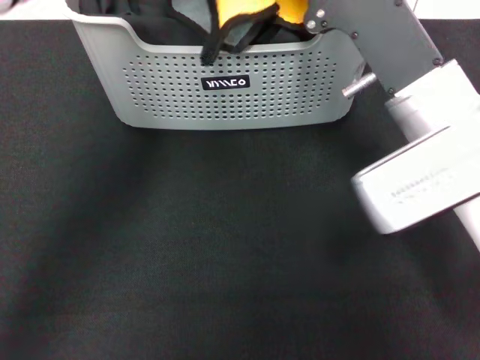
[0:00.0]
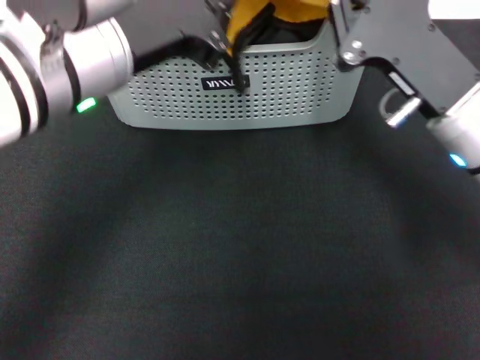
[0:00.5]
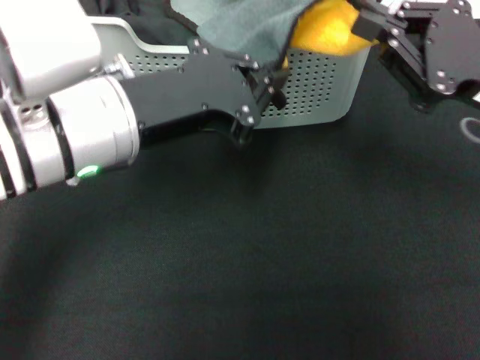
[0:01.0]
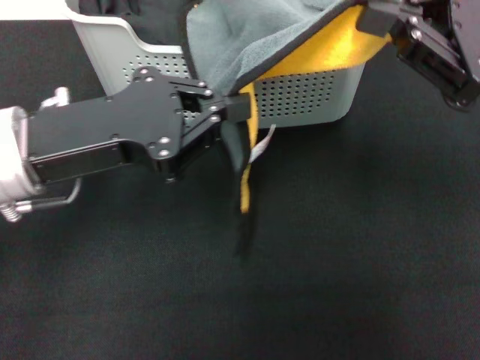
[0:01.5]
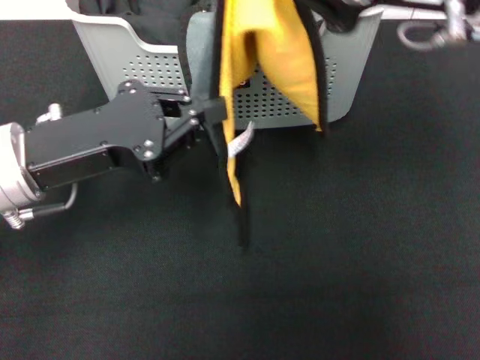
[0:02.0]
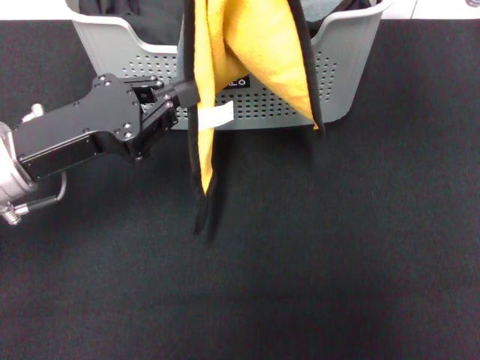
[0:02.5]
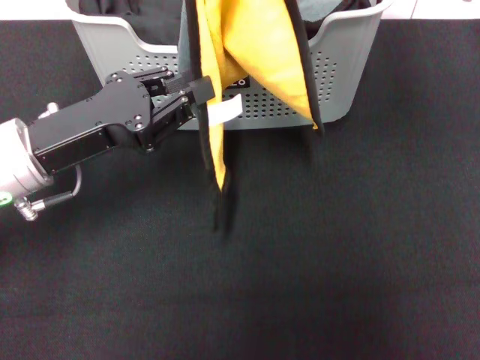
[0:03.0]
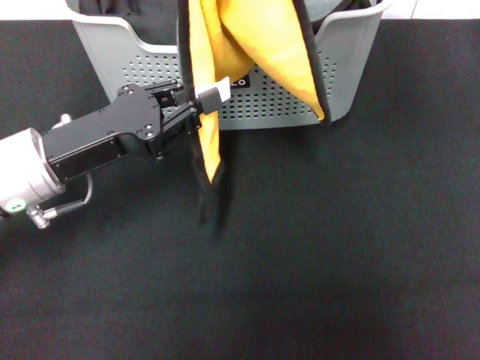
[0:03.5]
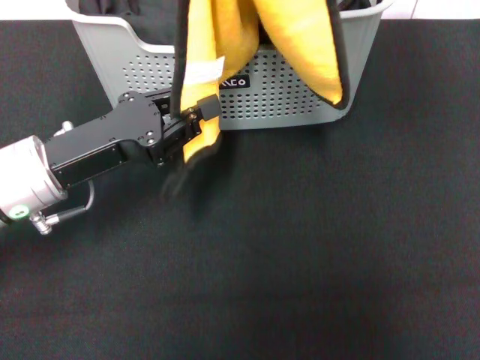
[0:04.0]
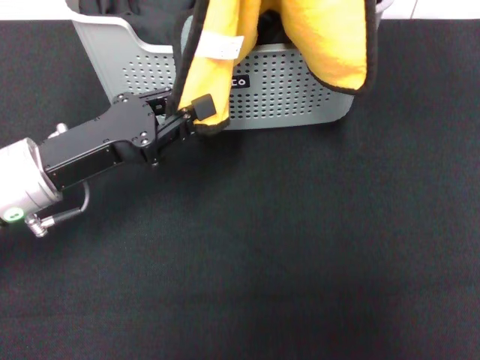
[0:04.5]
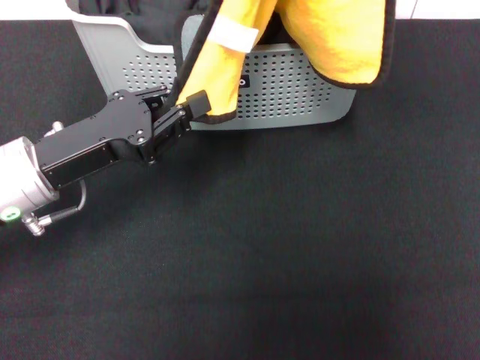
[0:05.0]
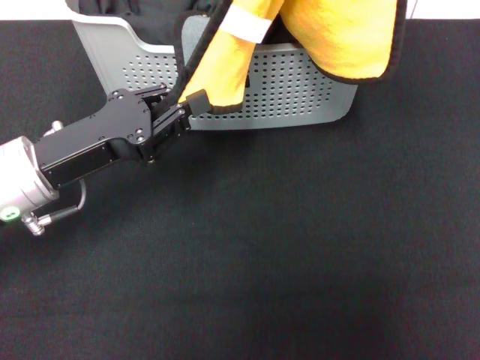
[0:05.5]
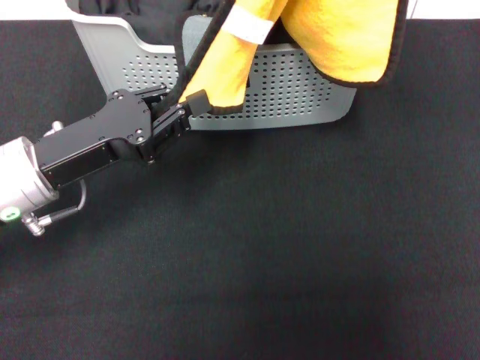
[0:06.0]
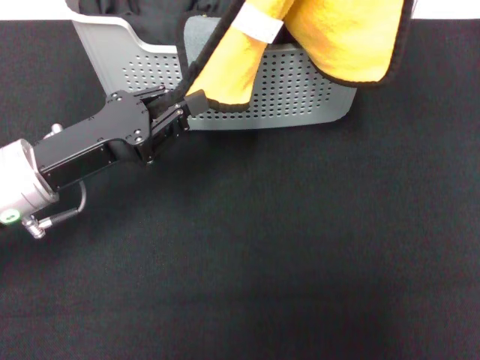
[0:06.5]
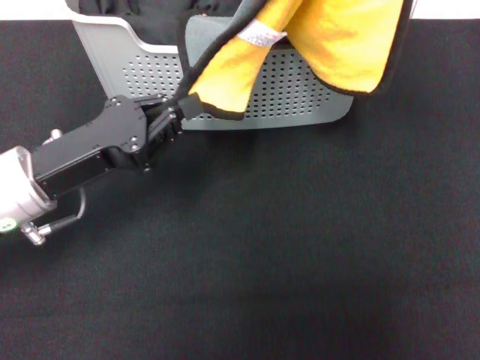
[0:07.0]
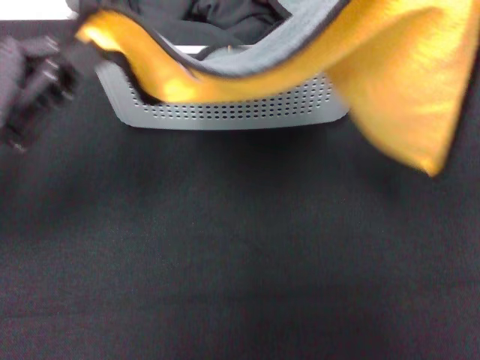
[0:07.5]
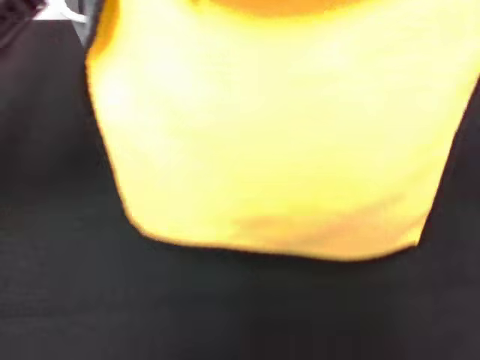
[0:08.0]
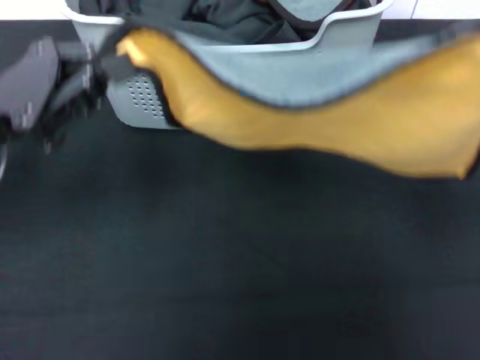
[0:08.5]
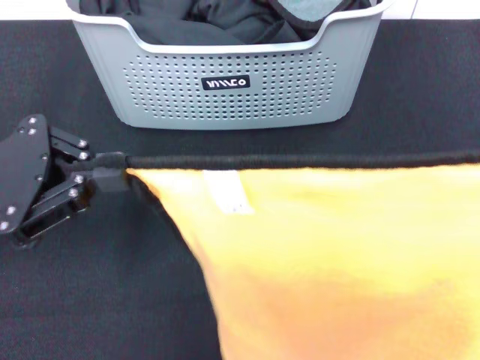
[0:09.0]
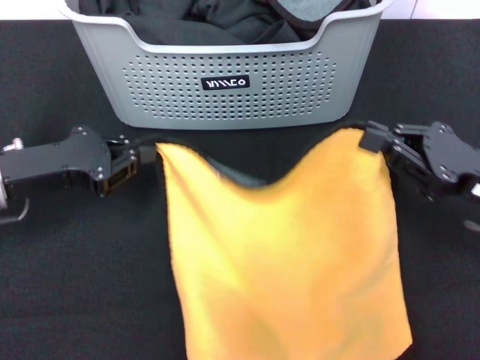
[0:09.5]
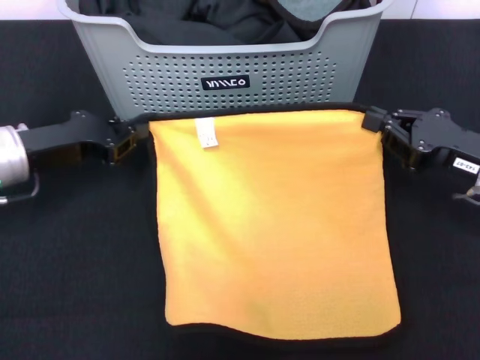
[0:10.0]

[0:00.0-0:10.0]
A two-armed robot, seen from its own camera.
Task of the whole recording: pick up the towel from the storage box and lay it flat on the black tablecloth.
0:00.0 to 0:02.0: The right gripper travels upward by roughly 10 cm. Meanwhile the left gripper shifts roughly 20 cm downward, to the left and backward.
0:02.0 to 0:04.0: The left gripper moves some 5 cm, while the right gripper shifts by roughly 5 cm.
0:04.0 to 0:06.0: The right gripper is displaced to the right by some 5 cm.
0:06.0 to 0:08.0: The left gripper heads upward and to the left, covering roughly 10 cm; the right gripper moves backward, downward and to the right, roughly 10 cm.
0:08.0 to 0:10.0: Both grippers travel together downward, some 15 cm.

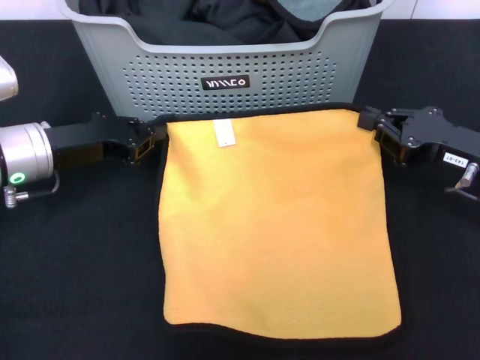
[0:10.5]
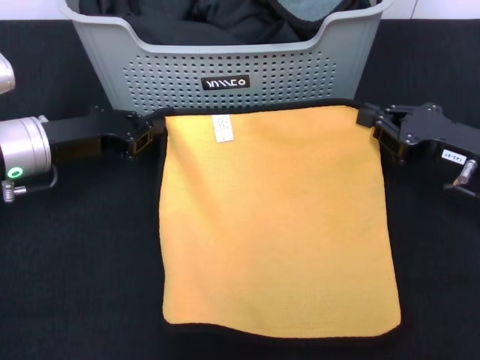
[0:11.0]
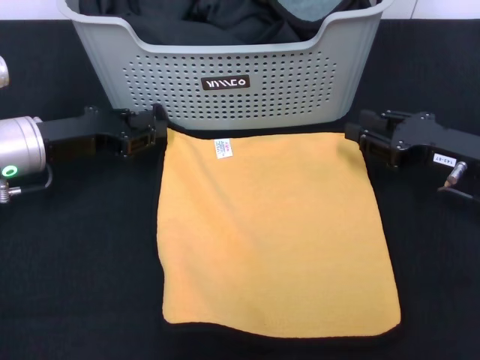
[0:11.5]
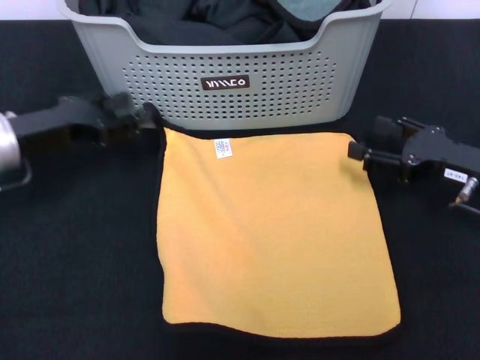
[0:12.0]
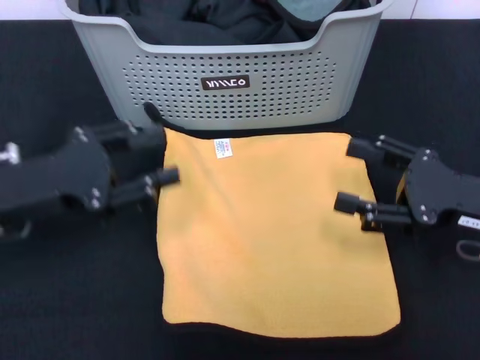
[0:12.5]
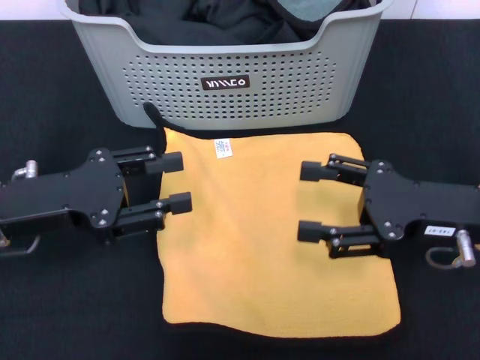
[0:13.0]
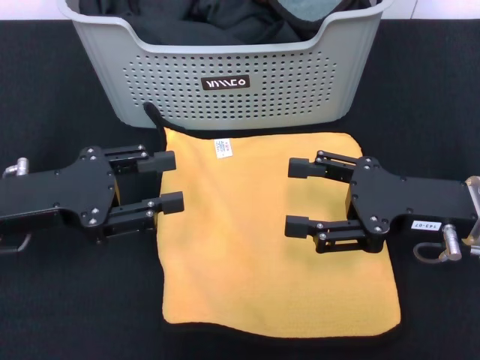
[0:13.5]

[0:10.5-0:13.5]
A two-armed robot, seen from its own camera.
Task of the whole recording: pick up the towel from the storage box and lay it flat on the black tablecloth.
0:10.5 to 0:12.0: The left gripper opens. Meanwhile the right gripper opens its fingers.
0:12.0 to 0:13.5: The left gripper travels backward by about 5 cm; the right gripper moves to the left, about 5 cm.

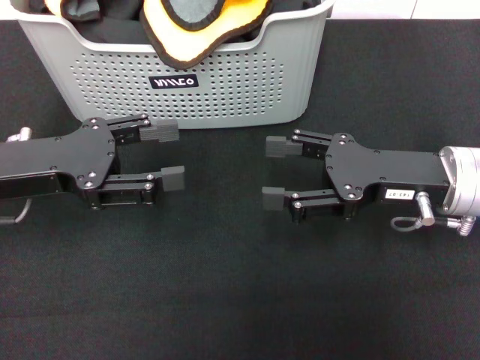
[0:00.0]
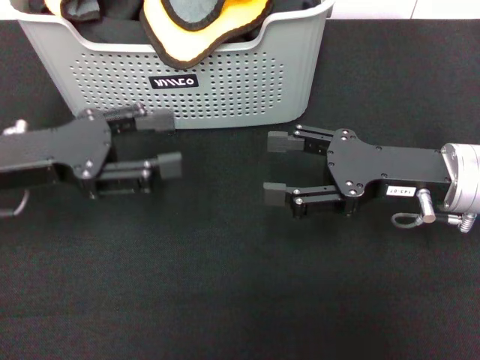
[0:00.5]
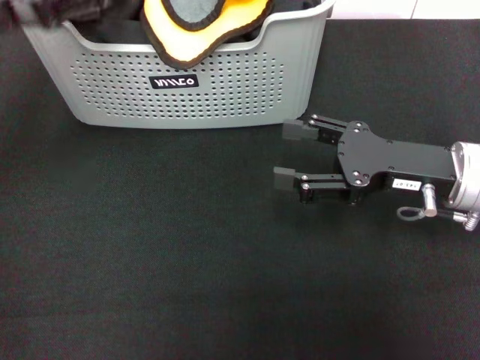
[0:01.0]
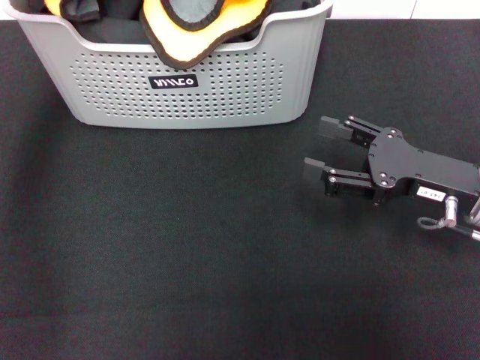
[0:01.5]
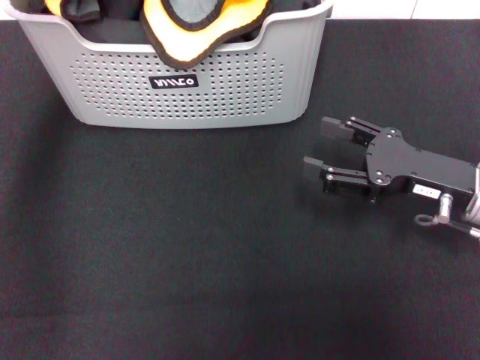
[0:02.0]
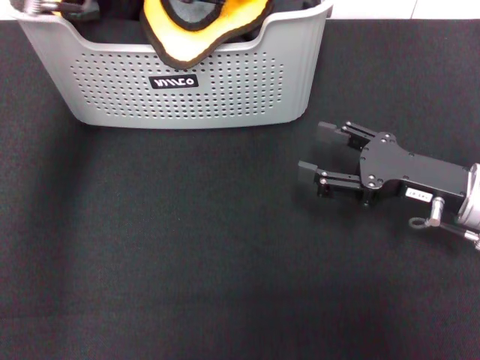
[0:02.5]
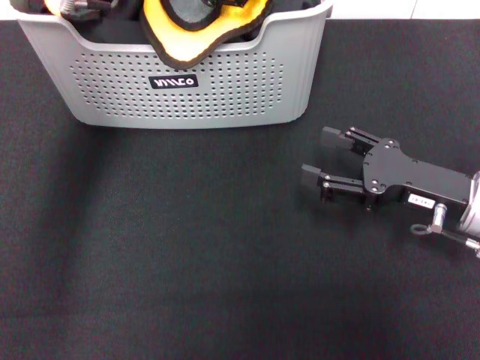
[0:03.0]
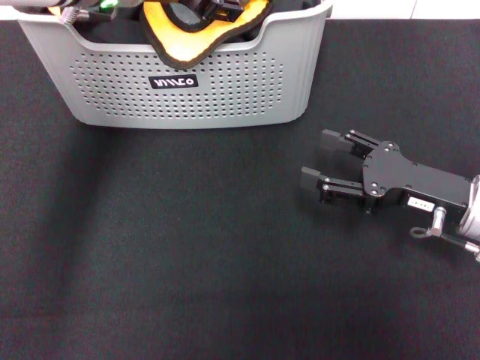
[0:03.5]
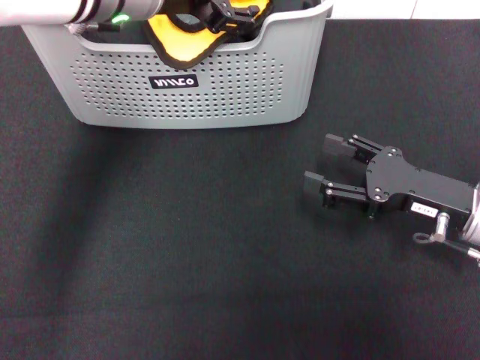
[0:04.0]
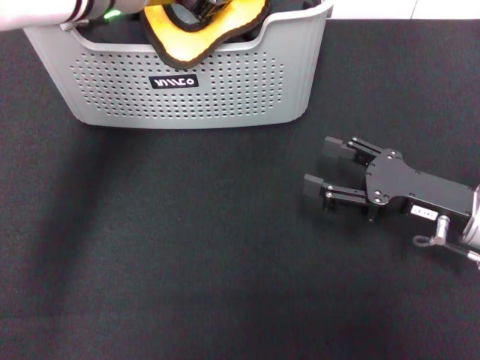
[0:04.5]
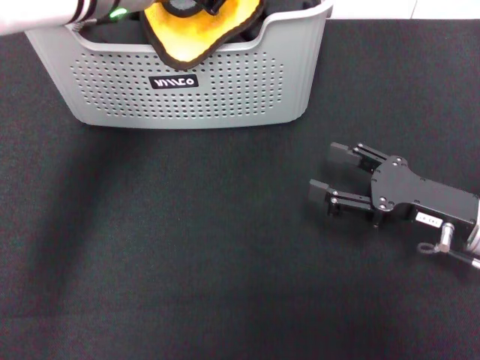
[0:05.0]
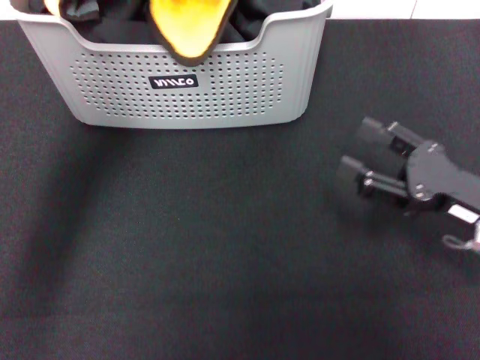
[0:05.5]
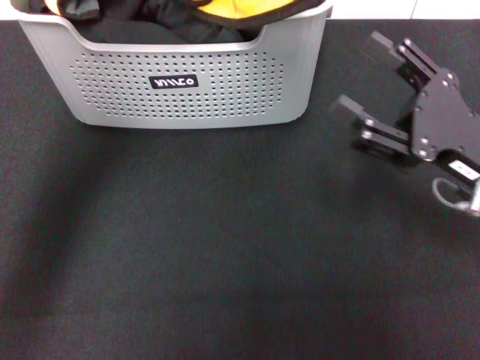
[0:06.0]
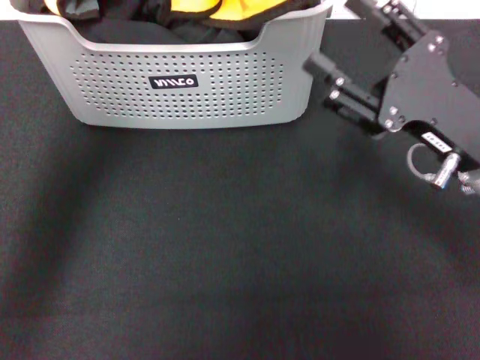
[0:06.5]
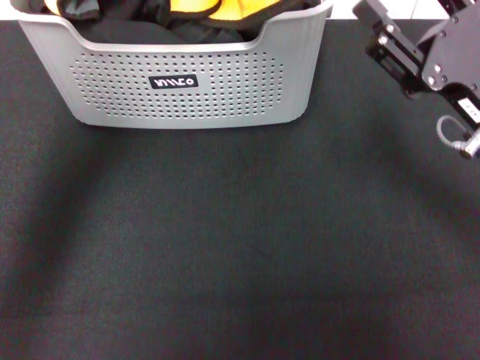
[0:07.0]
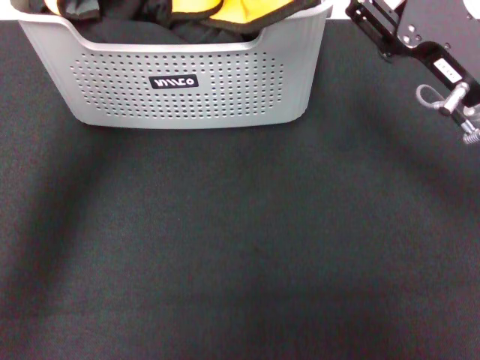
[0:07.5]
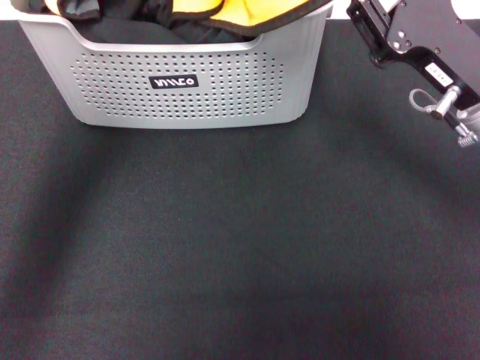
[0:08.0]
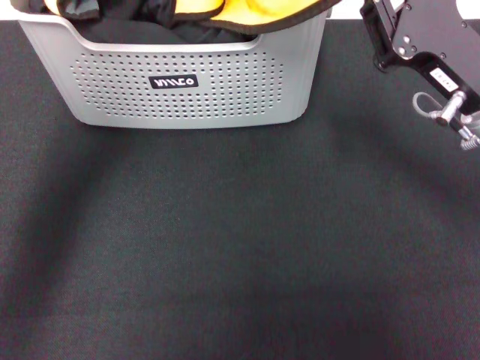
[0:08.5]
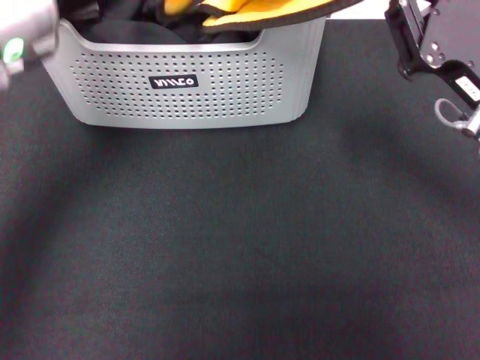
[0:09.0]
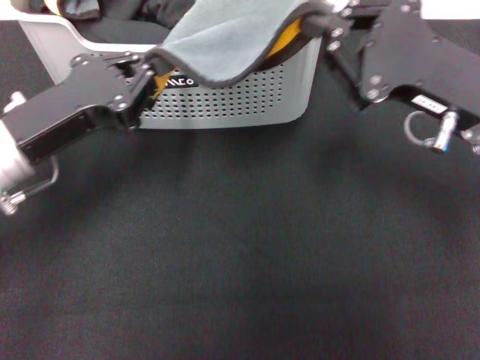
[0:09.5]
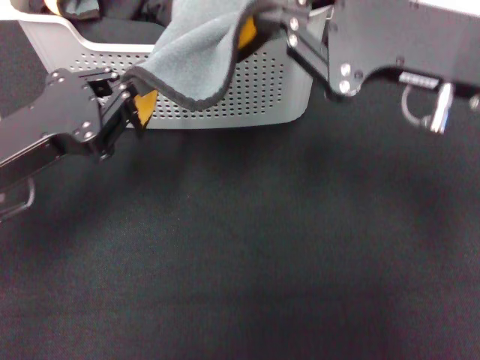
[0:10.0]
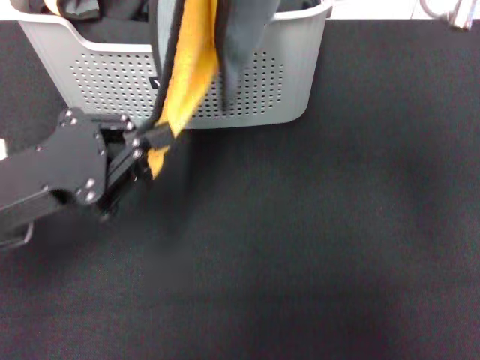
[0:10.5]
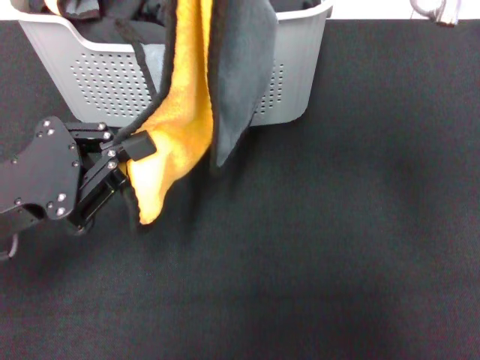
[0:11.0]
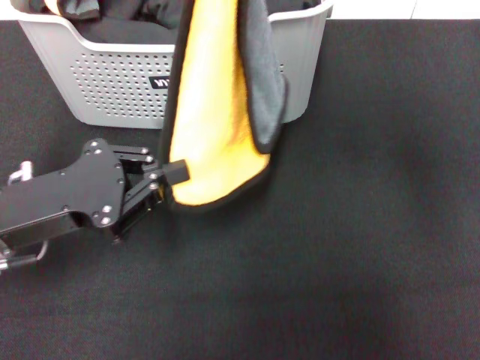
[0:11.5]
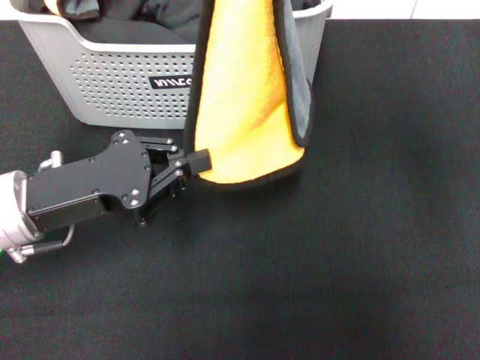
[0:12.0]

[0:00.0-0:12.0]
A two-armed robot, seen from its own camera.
Task of the whole recording: pick up the towel from the storage box and lay it flat on the black tablecloth.
Step, 0:00.0 to 0:05.0: Pick up a towel with the left gripper.
Step, 0:05.5 to 0:09.0: Spread the towel flat with the left gripper.
0:00.0 to 0:02.0: The left gripper moves upward and forward, approximately 20 cm.
0:02.0 to 0:04.0: The left gripper travels to the right by roughly 10 cm.
0:04.0 to 0:06.0: The left gripper moves upward and backward, some 15 cm, and closes its fingers.
0:06.0 to 0:08.0: The right gripper ends up about 5 cm from where it was, and closes.
0:08.0 to 0:10.0: The right gripper shifts about 10 cm upward, and closes up. The left gripper travels downward and to the left by about 25 cm.
0:10.0 to 0:12.0: The right gripper travels upward by about 10 cm.
